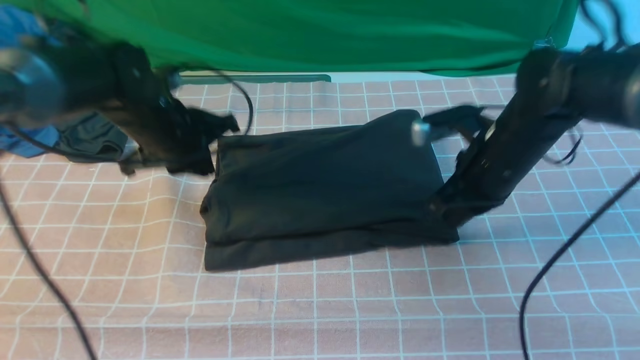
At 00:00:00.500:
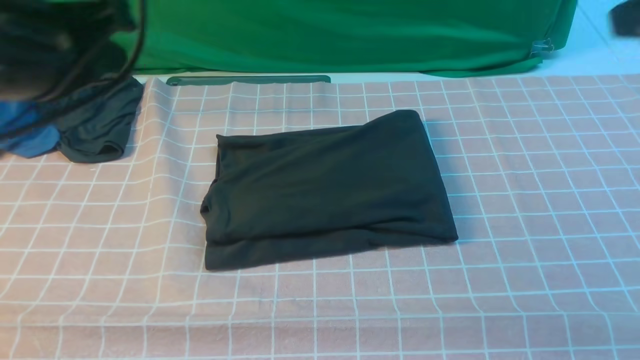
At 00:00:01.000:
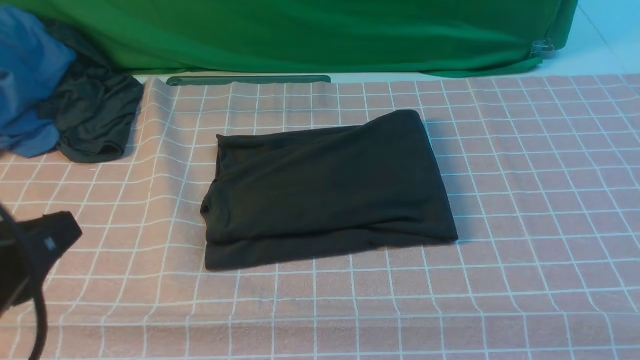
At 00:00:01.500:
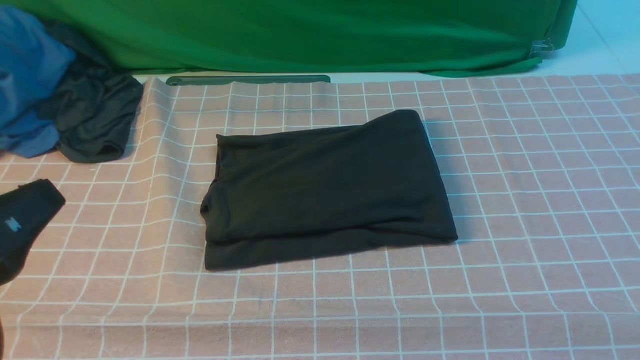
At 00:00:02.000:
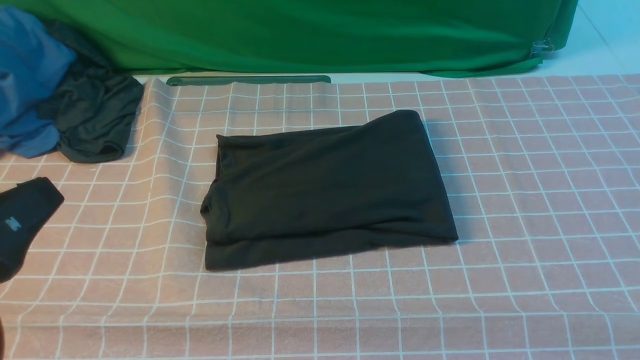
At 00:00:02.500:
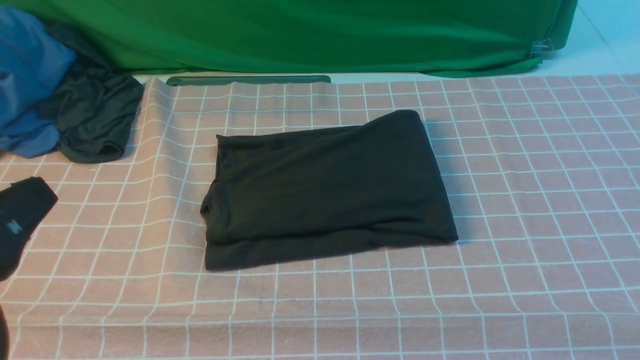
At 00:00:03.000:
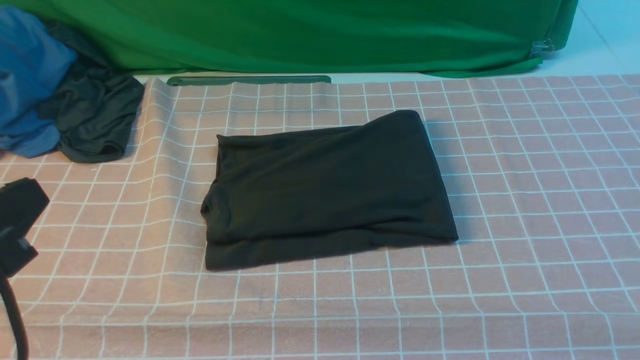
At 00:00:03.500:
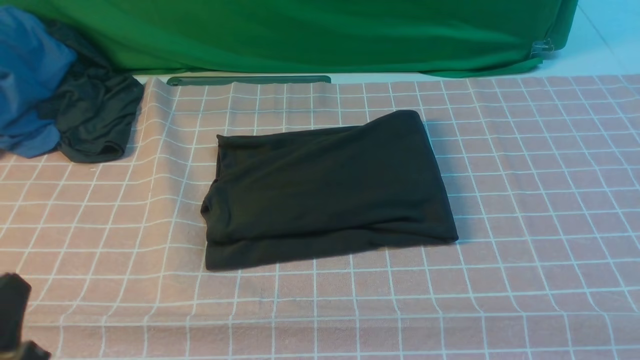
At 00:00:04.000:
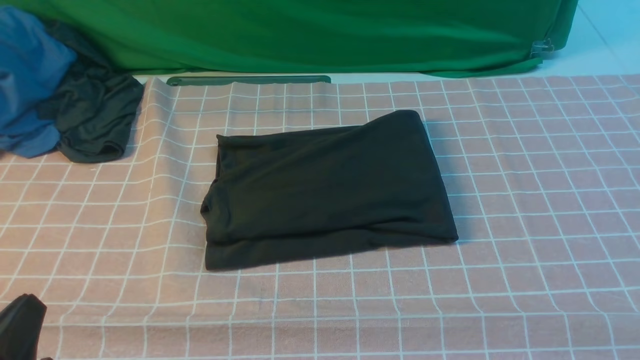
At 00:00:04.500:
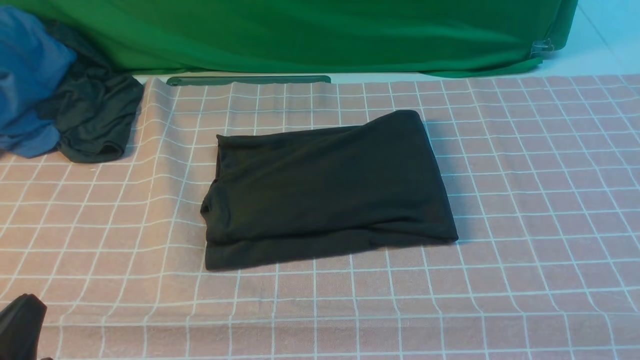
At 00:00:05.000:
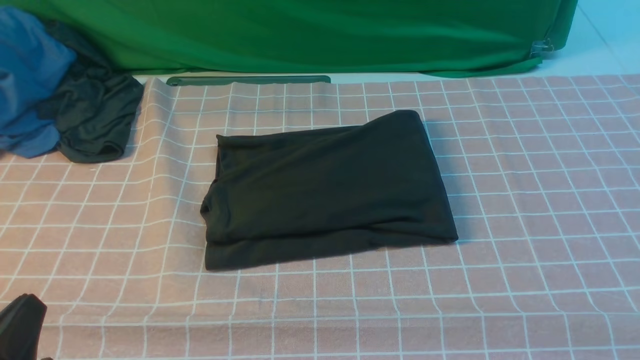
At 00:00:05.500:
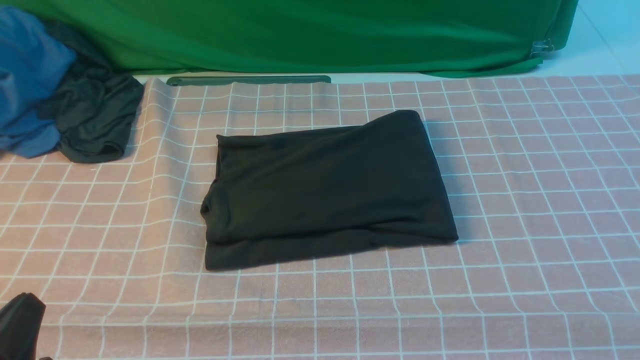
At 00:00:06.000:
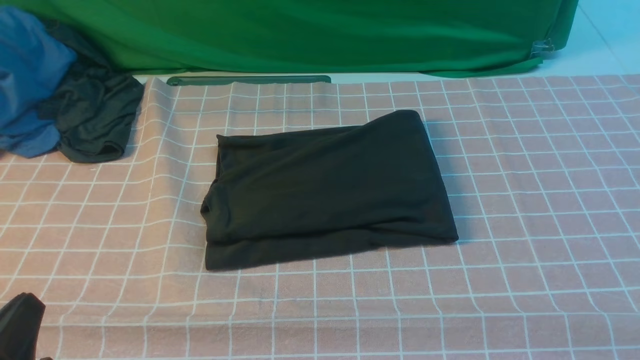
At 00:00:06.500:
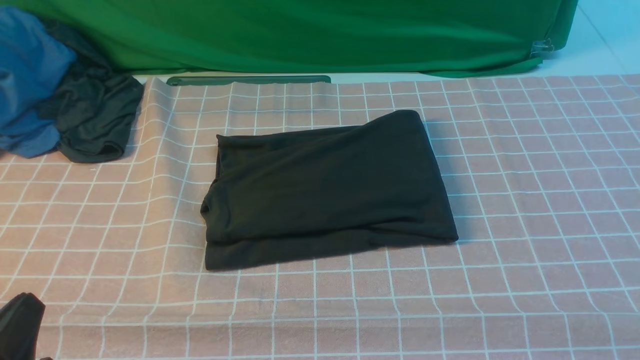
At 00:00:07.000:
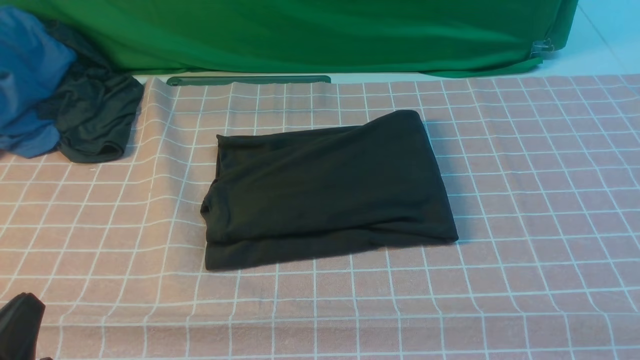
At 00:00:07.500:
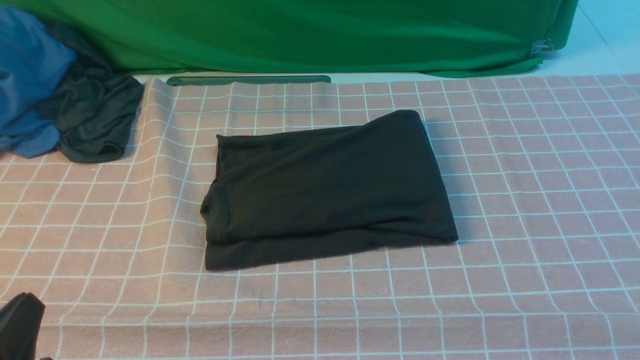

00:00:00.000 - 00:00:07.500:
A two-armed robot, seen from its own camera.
00:00:00.000 - 00:00:02.000: The left gripper travels backward by about 30 cm, while the right gripper goes roughly 40 cm backward and upward.
00:00:02.000 - 00:00:04.000: The left gripper shifts about 15 cm downward.

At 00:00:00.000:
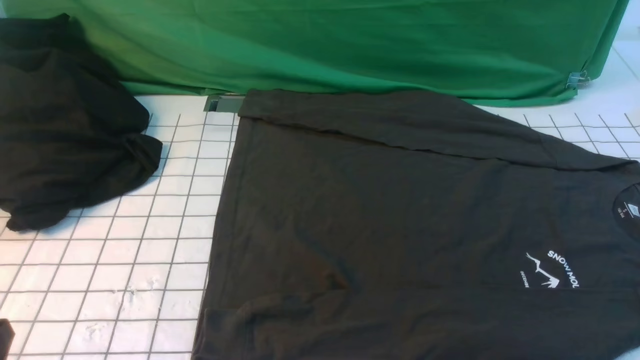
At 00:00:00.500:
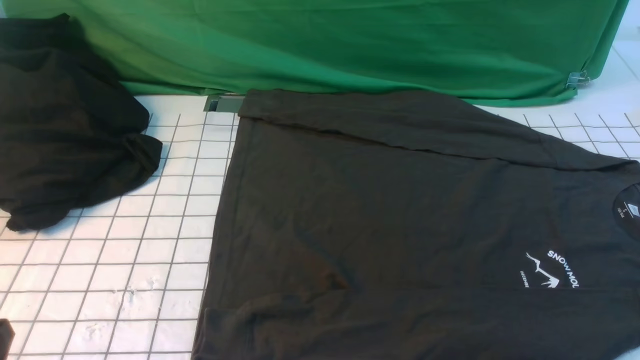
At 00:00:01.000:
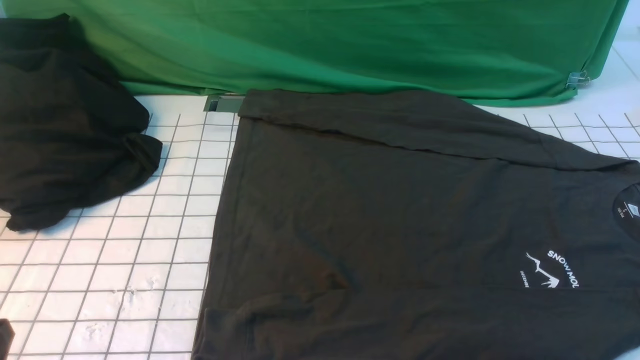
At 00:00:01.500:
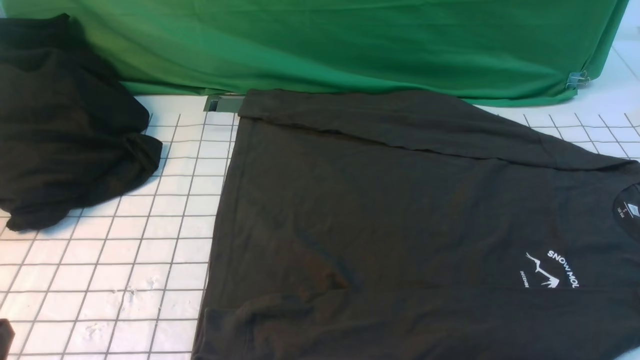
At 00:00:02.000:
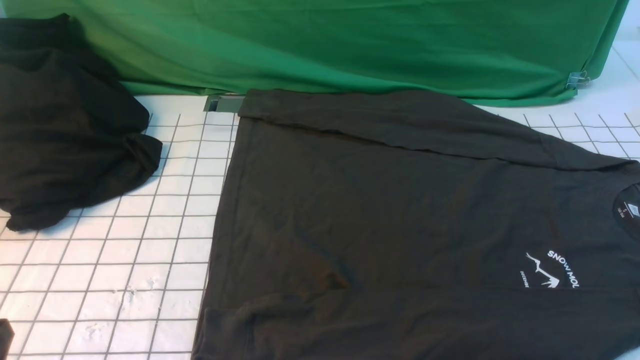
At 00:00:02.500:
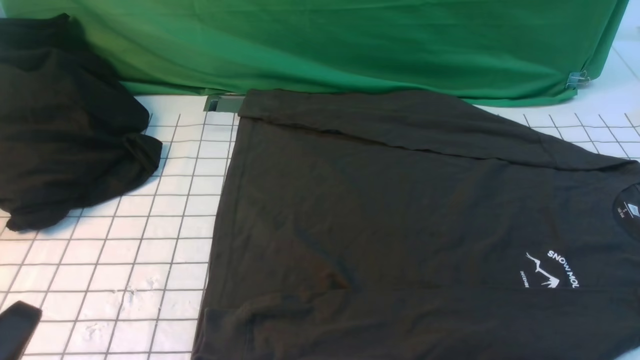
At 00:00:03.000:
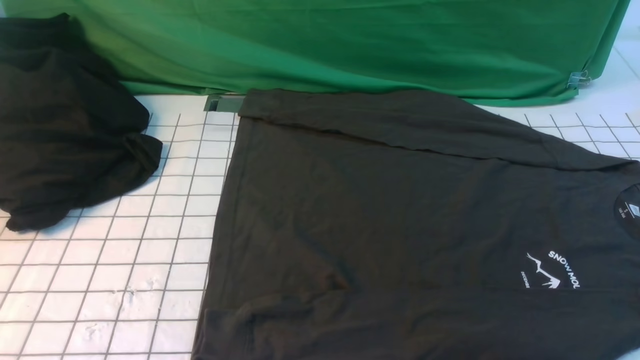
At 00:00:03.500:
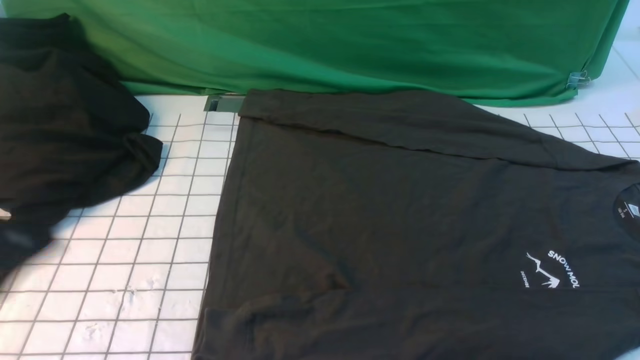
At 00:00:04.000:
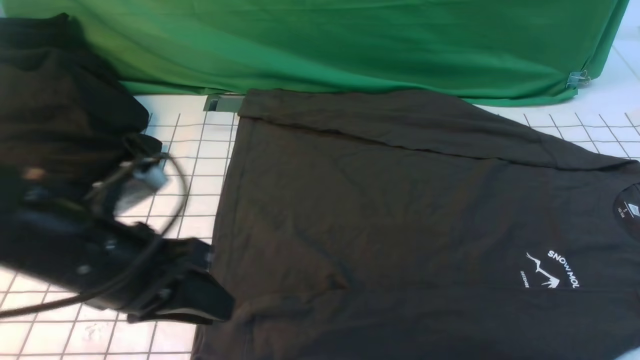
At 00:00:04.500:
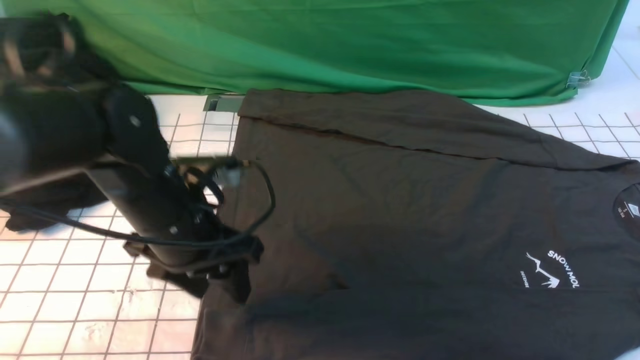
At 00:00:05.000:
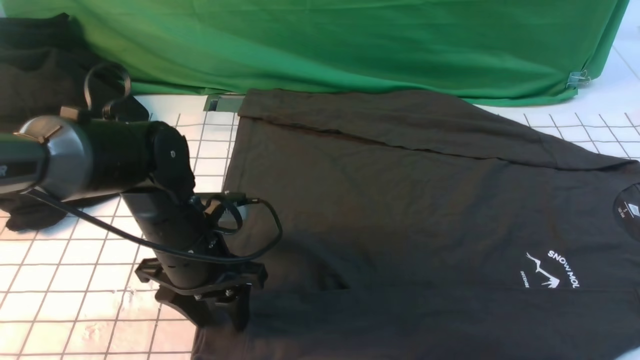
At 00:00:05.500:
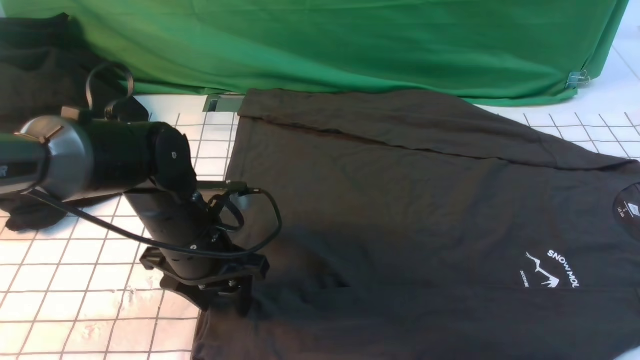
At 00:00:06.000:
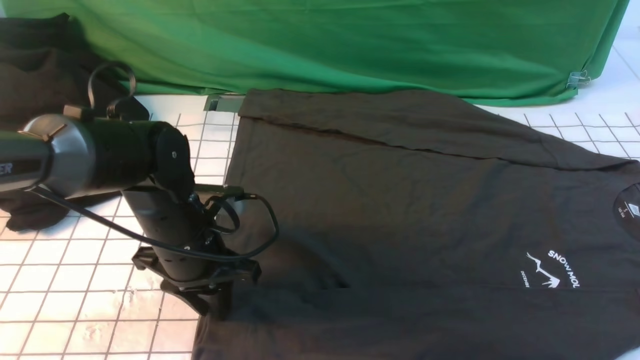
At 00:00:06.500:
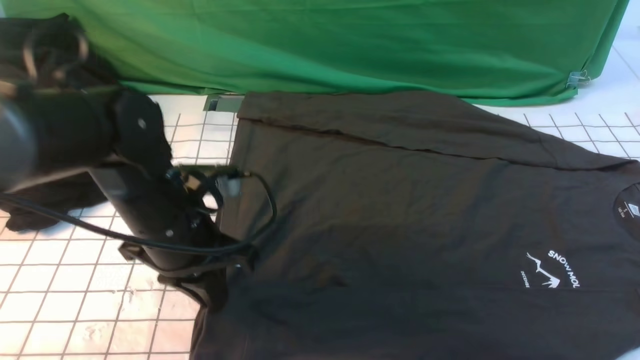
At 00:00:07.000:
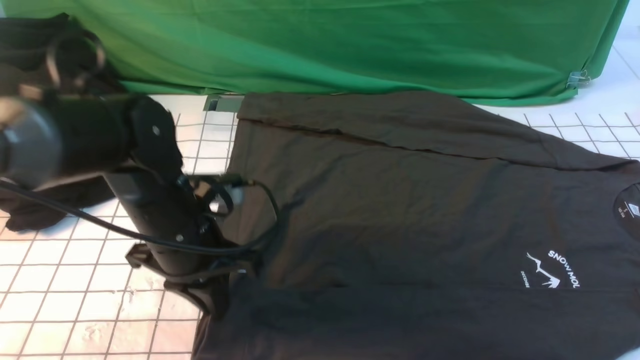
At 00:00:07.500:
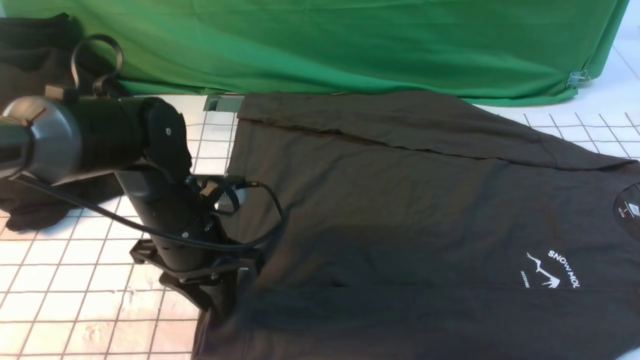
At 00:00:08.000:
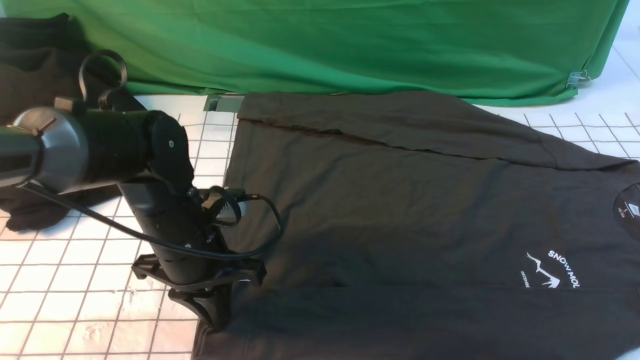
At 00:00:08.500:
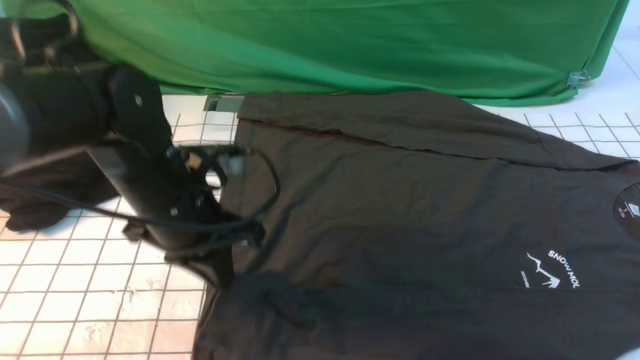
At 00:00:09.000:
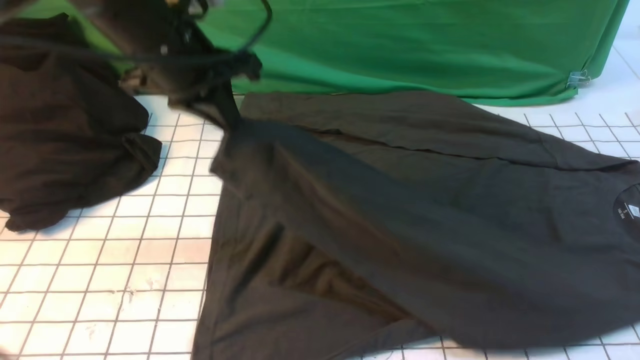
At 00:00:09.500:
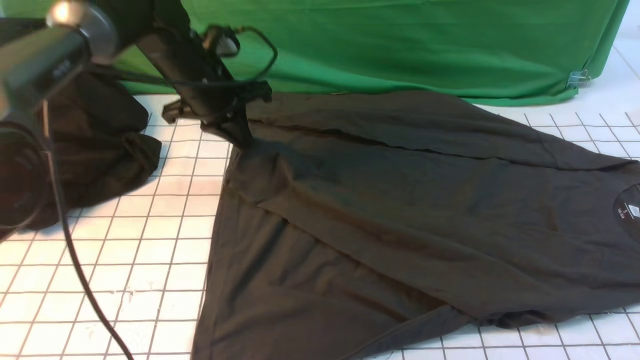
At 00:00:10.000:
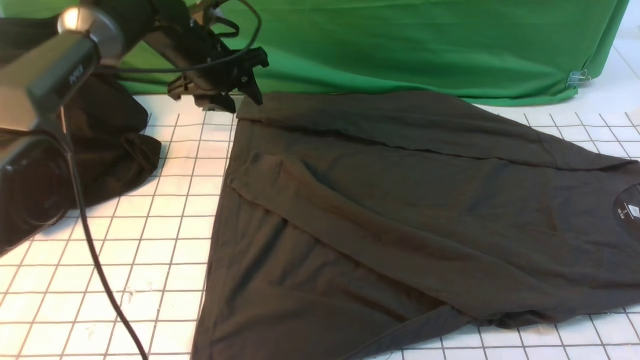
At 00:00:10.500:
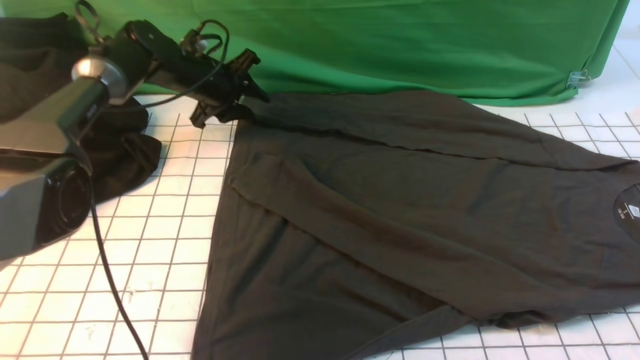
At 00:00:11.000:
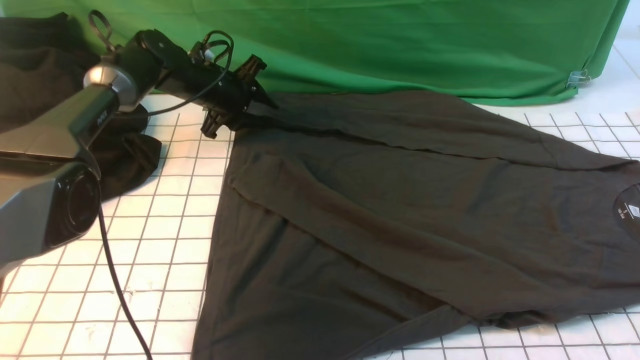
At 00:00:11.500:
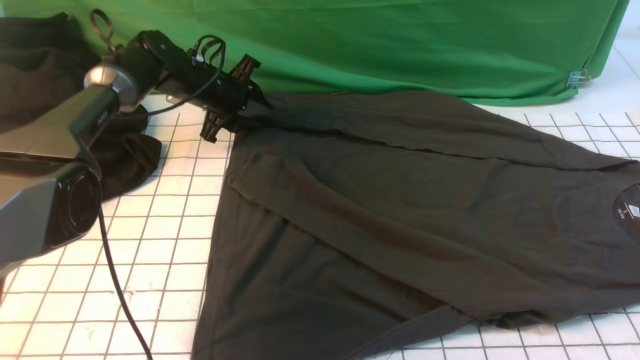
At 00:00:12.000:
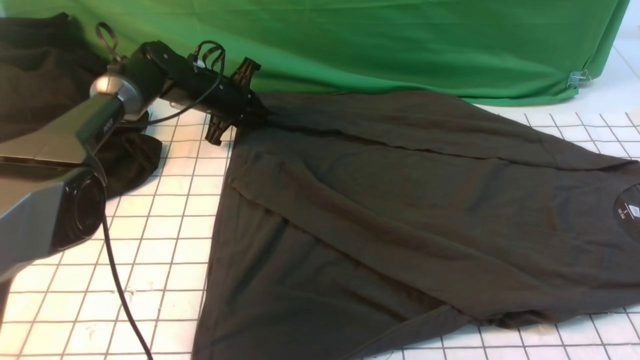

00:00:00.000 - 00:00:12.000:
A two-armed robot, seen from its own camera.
Step, 00:00:00.000 - 00:00:08.000: use the left arm to clamp the cuff closest to it.
Step, 00:00:08.500 - 00:00:09.500: use the left arm to drag and place the cuff at the centered position on the left edge of the fabric.
00:00:00.000 - 00:00:02.000: Both grippers stay put.
00:00:02.000 - 00:00:04.000: The left gripper goes some 20 cm forward, to the right and upward, and opens up.
00:00:04.000 - 00:00:06.000: The left gripper goes some 15 cm downward and forward, and opens, then closes once more.
00:00:08.000 - 00:00:10.000: The left gripper heads forward, covering some 25 cm, and opens.
00:00:10.000 - 00:00:12.000: The left gripper is displaced downward by some 5 cm, and closes up.
